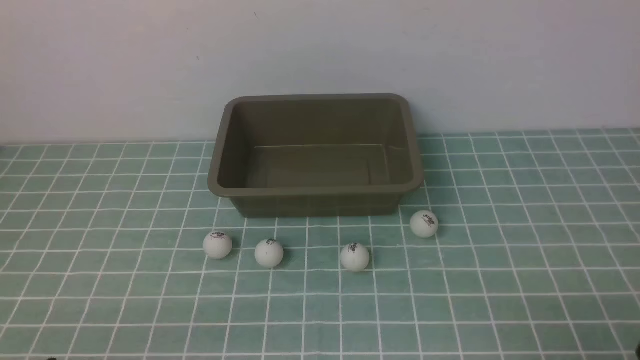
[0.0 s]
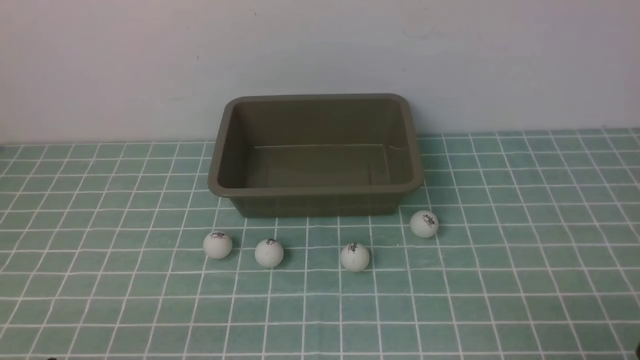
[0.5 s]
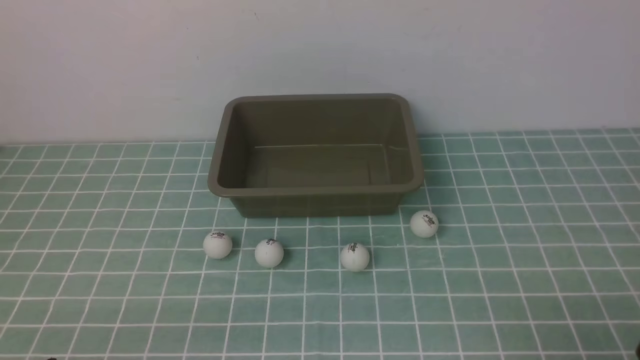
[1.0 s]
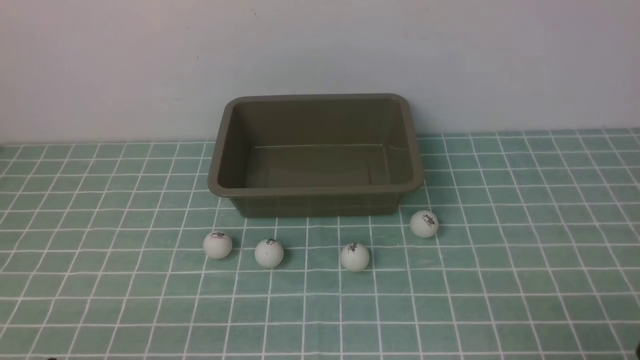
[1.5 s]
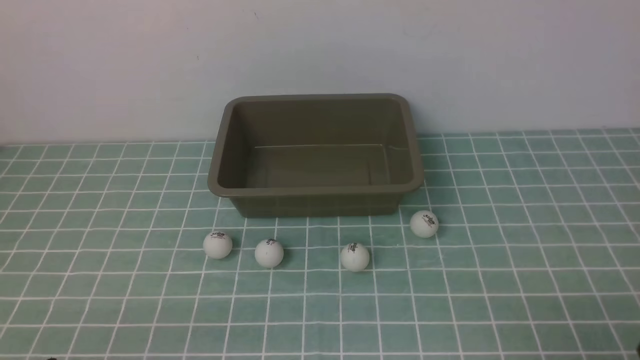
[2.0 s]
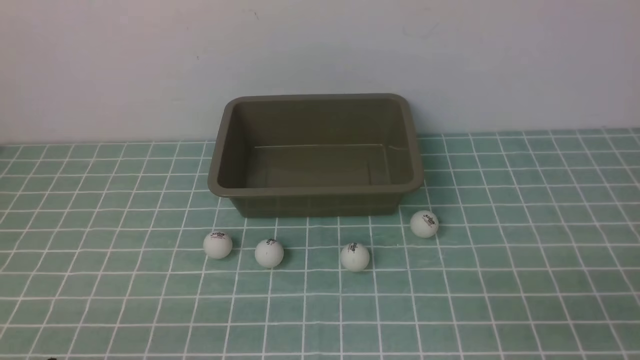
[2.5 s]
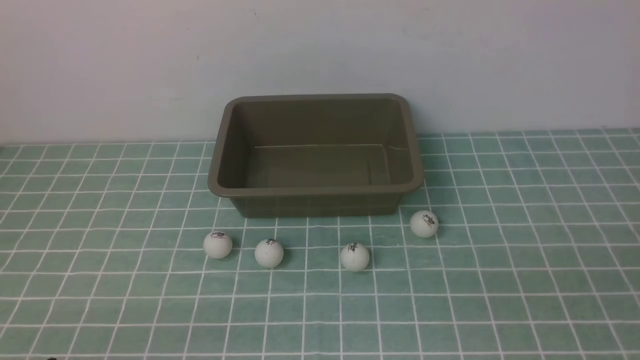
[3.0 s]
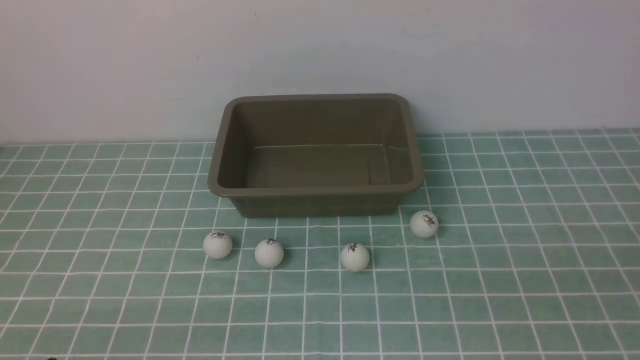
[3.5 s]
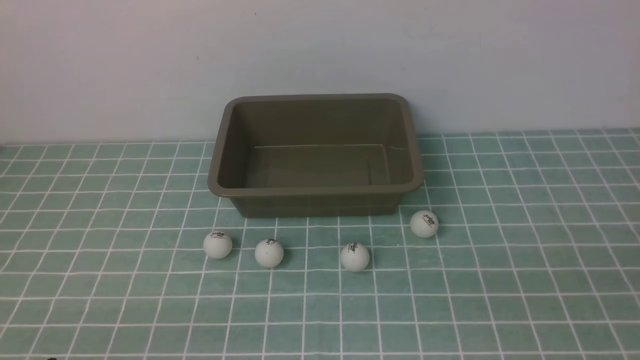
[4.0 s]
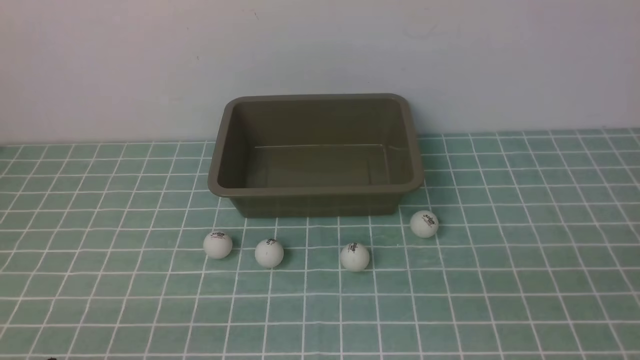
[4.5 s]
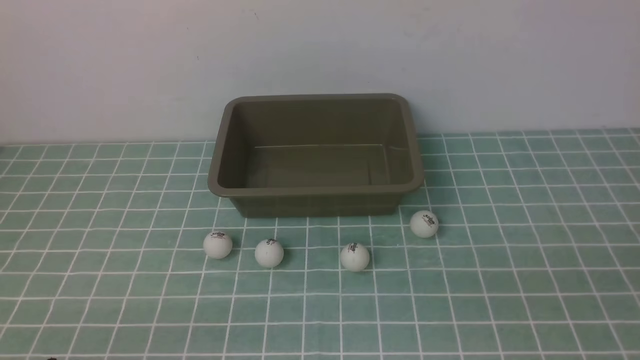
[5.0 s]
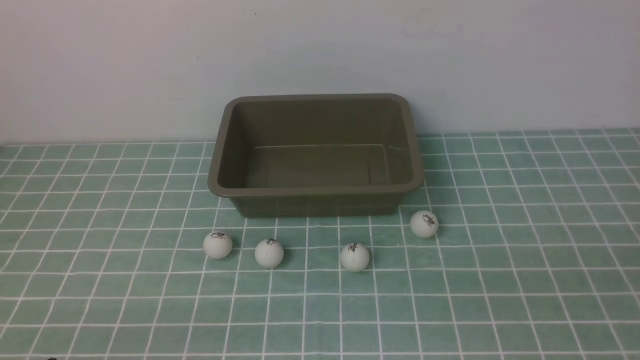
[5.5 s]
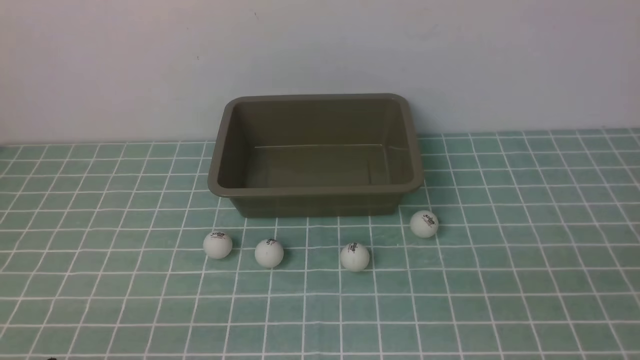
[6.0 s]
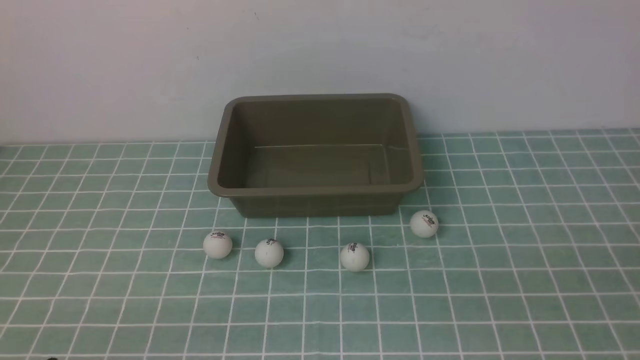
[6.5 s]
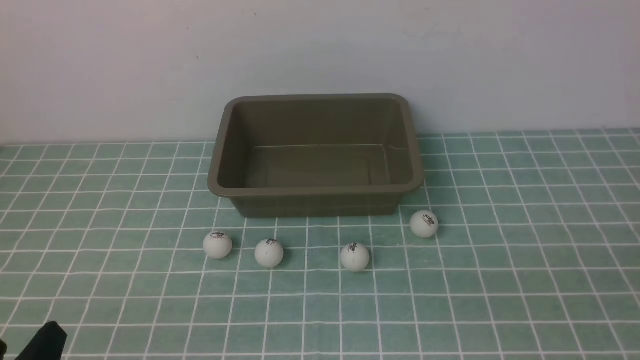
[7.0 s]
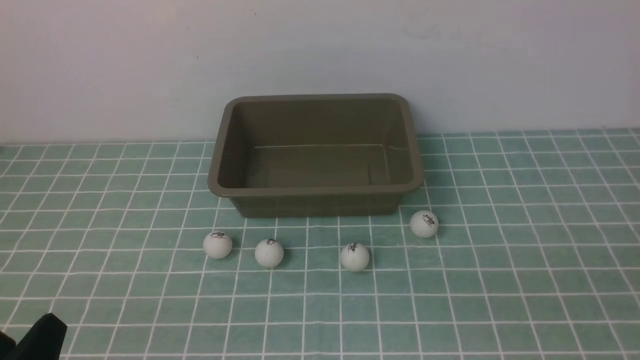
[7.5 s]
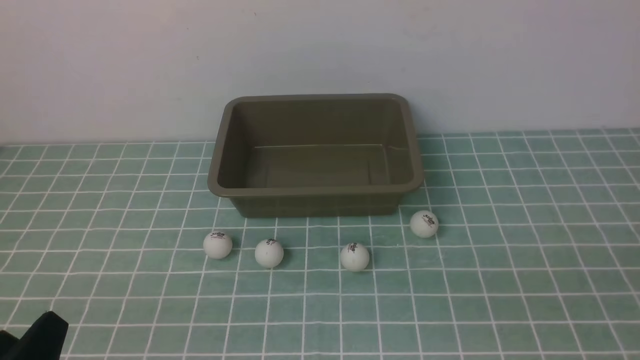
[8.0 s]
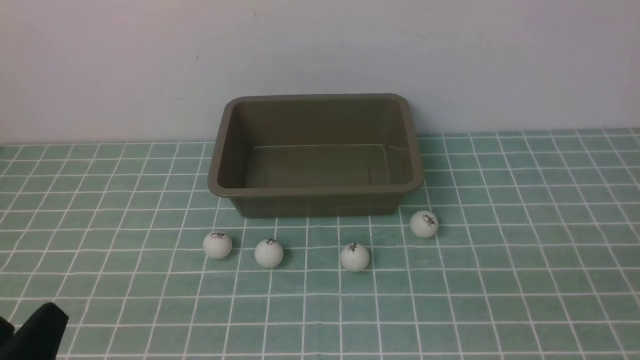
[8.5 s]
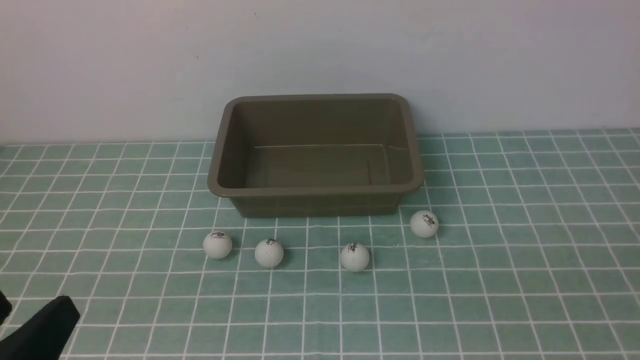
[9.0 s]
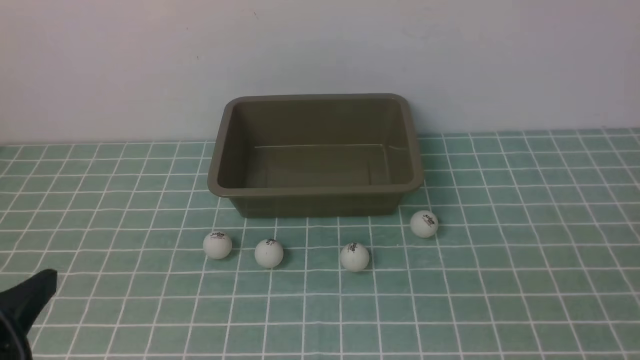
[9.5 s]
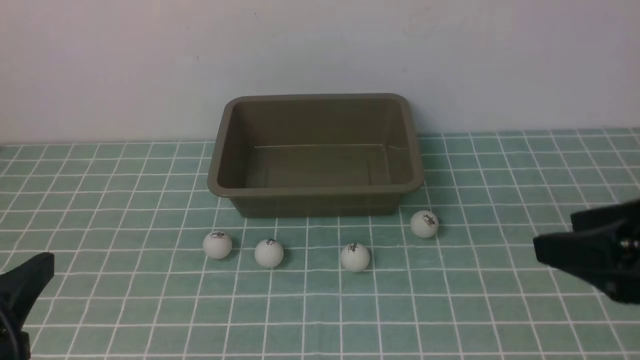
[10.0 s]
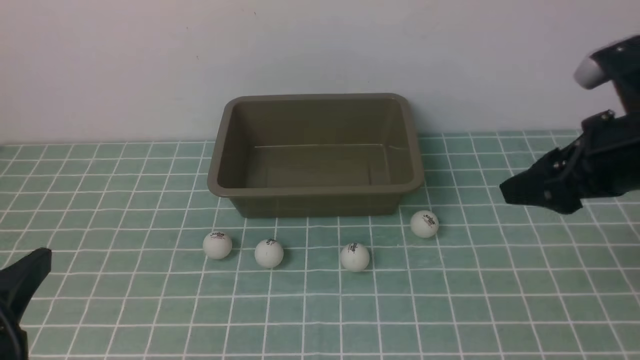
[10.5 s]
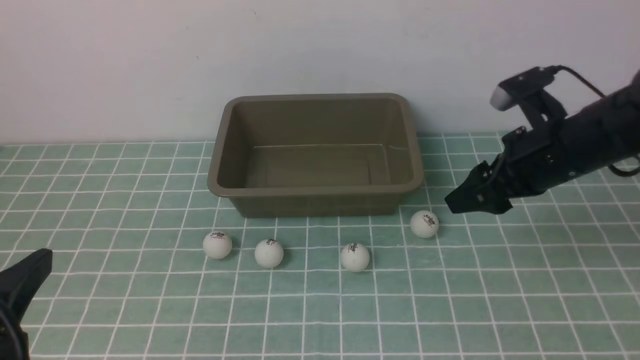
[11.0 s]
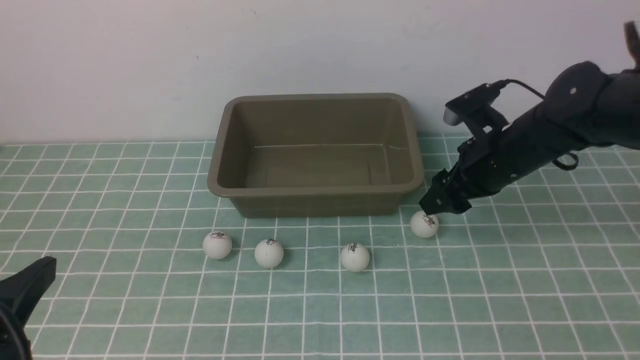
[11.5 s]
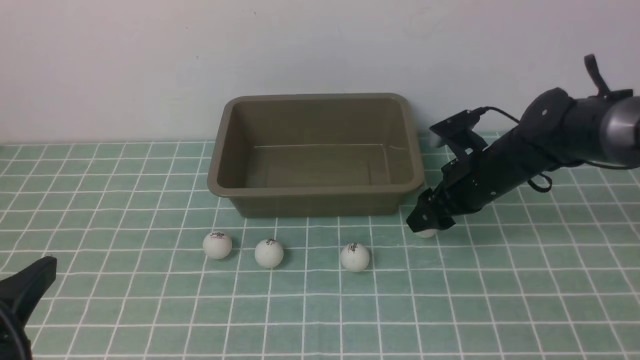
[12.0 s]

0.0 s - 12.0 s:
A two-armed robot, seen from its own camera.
0.0 s - 2.0 s: Neither gripper changes place.
4.0 s - 6.0 s: The two grippers keep their place.
8.0 s - 10.0 s: The right gripper shifts about 25 cm forward. The left gripper travels upward by roughly 10 cm.
10.0 s - 12.0 s: The right gripper heads forward and downward, covering some 25 cm, and closes up.

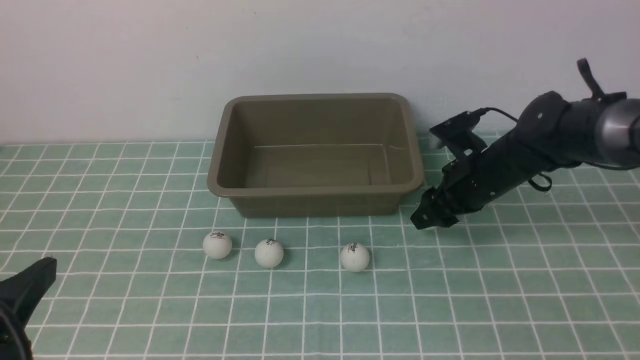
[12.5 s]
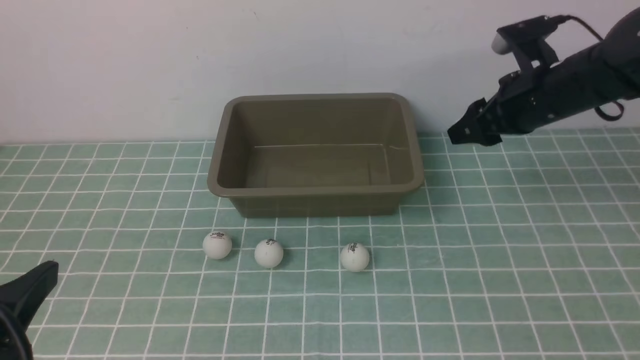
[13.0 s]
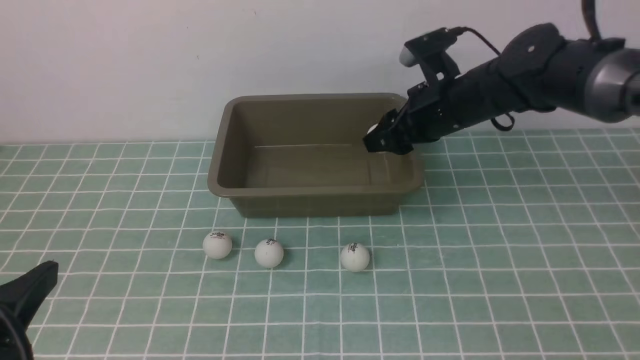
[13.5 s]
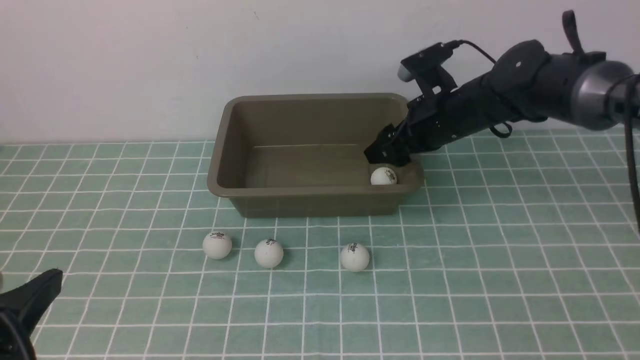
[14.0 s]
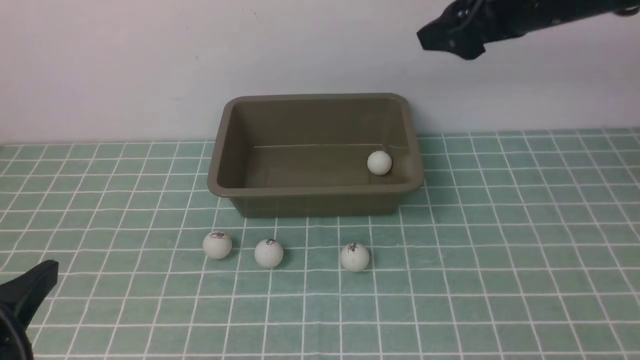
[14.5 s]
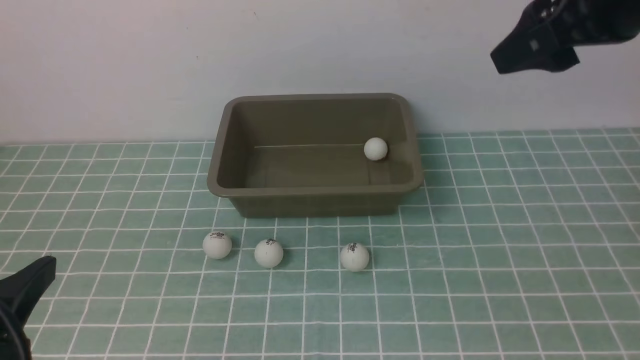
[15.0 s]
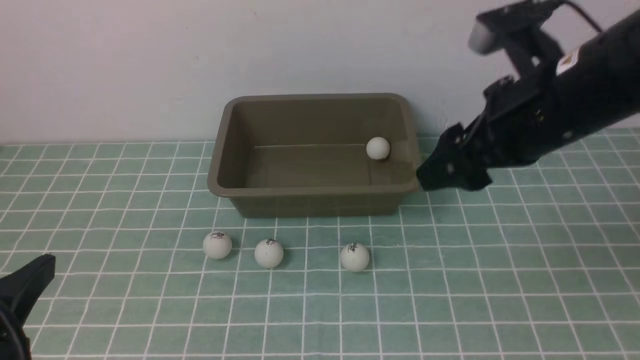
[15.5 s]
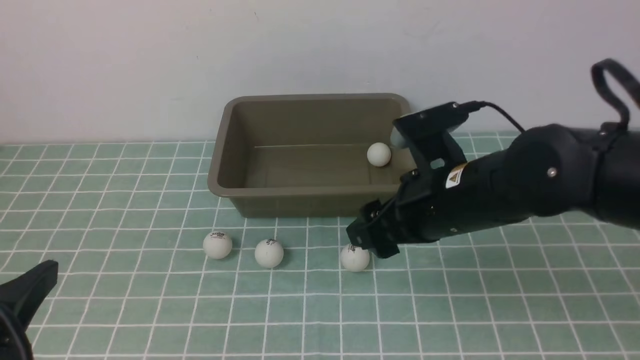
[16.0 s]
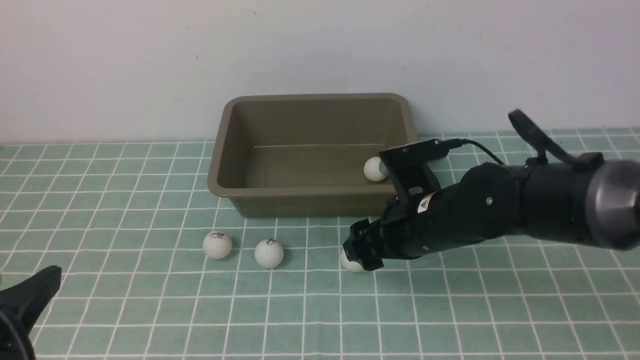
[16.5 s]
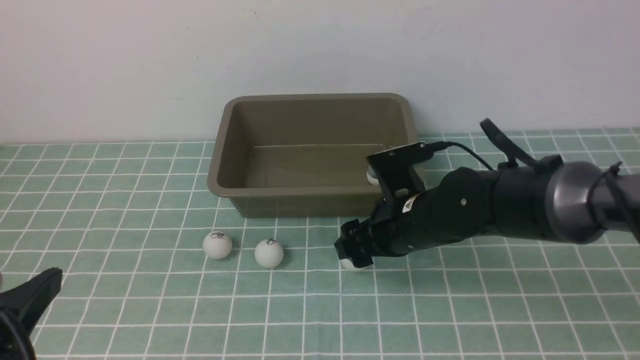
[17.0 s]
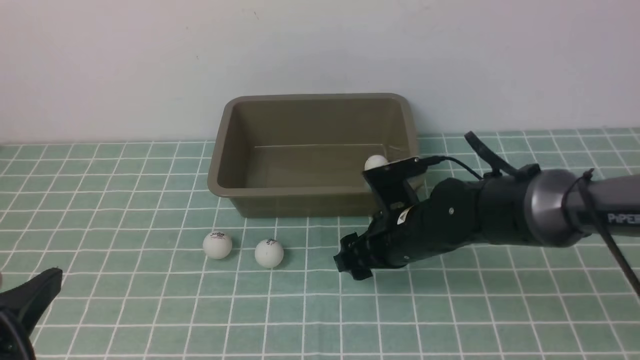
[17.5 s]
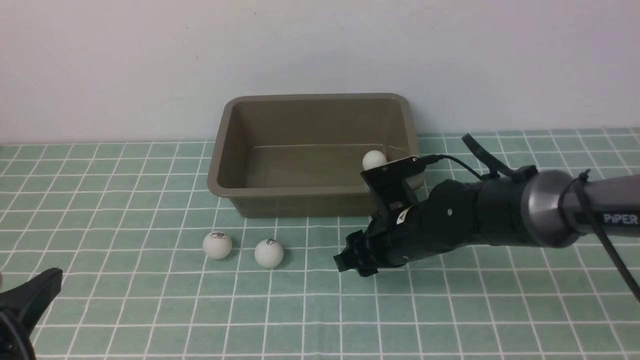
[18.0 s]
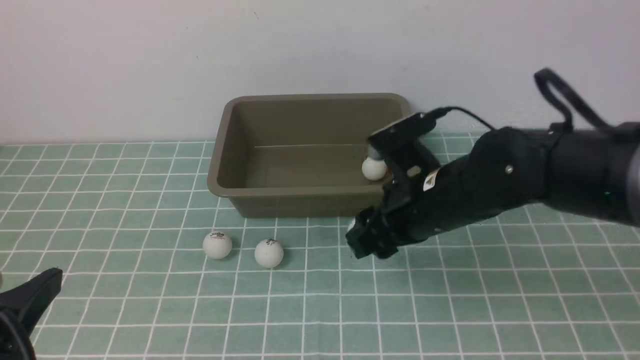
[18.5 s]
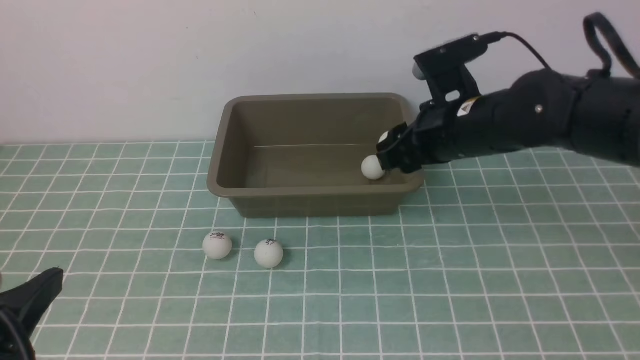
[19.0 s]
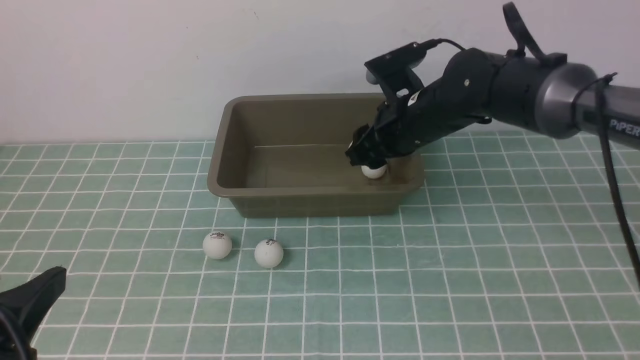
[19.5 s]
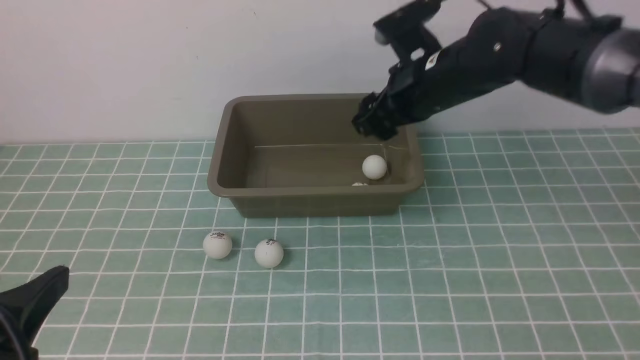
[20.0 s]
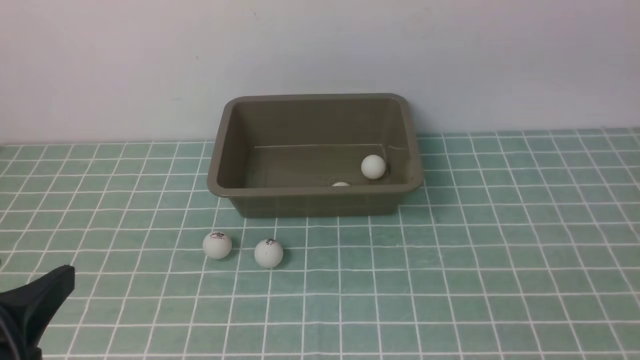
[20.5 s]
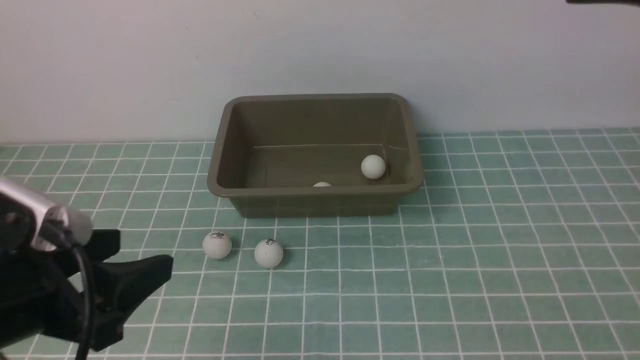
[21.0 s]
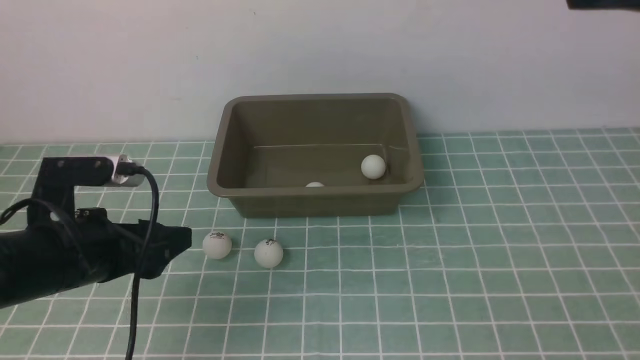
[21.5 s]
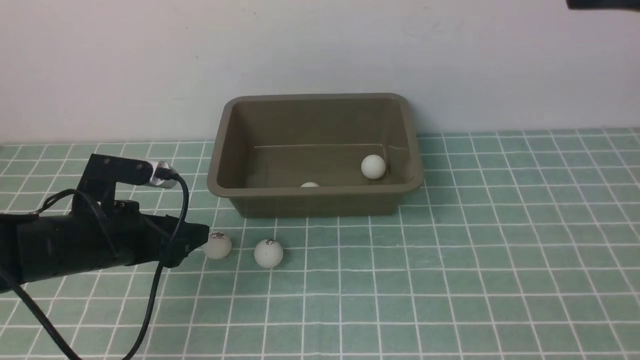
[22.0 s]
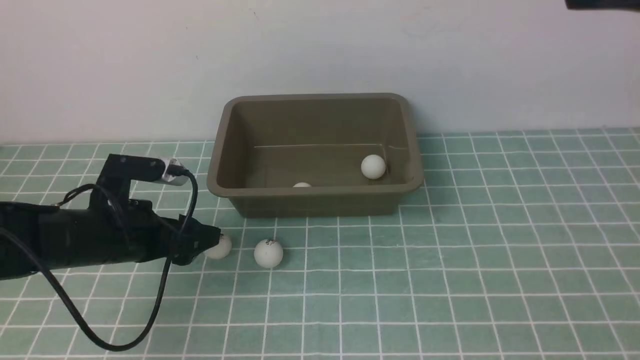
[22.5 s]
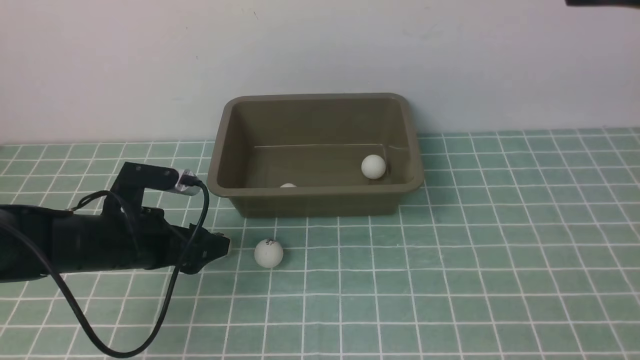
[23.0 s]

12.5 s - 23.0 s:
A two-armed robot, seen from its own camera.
Step, 13.0 s - 14.0 s: use the right arm to put the table tennis ball into the box.
Step, 14.5 s - 18.0 s: use the right arm to clamp the table tennis ball closest to it.
Step, 19.0 s - 20.0 s: use the right arm to put the table tennis ball into the box.
12.5 s - 14.5 s: The right gripper moves upward and backward, roughly 20 cm, and opens up.
14.5 s - 16.5 s: The right gripper heads downward and to the left, covering about 25 cm.
16.5 s - 19.0 s: The right gripper shifts approximately 10 cm upward and forward, and closes up.
19.0 s - 21.0 s: The right gripper is displaced upward and backward by approximately 30 cm, and opens up. Meanwhile the left gripper is displaced forward by some 10 cm.
21.0 s - 23.0 s: The left gripper heads forward and downward, covering about 15 cm.
